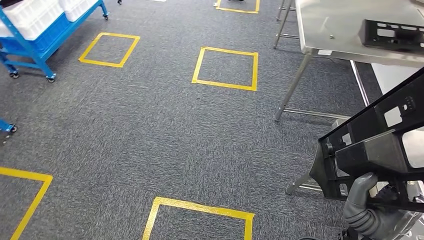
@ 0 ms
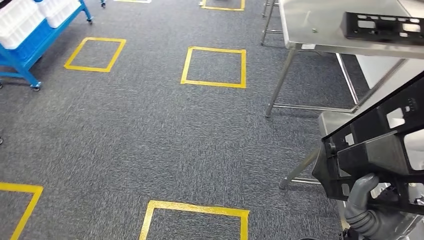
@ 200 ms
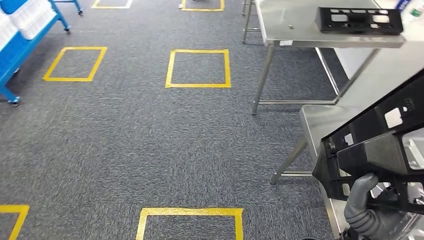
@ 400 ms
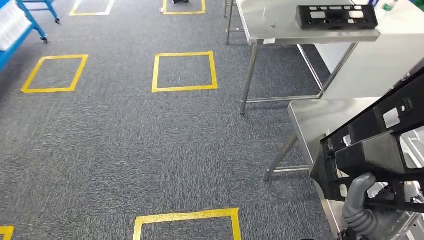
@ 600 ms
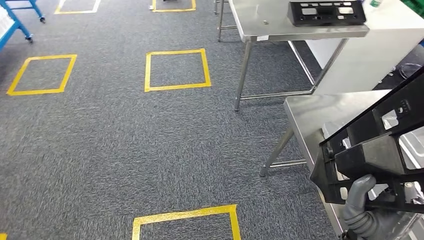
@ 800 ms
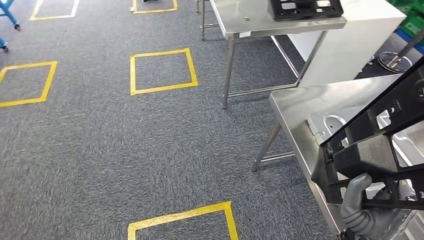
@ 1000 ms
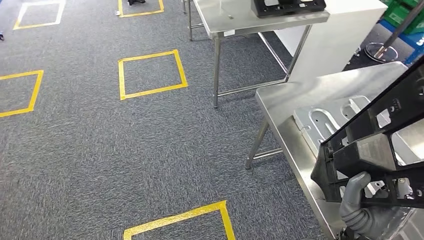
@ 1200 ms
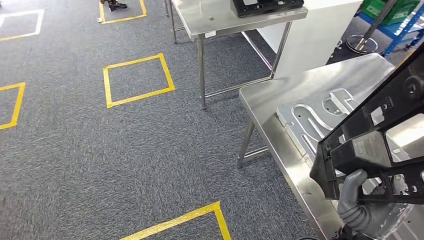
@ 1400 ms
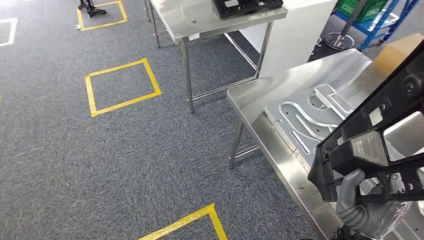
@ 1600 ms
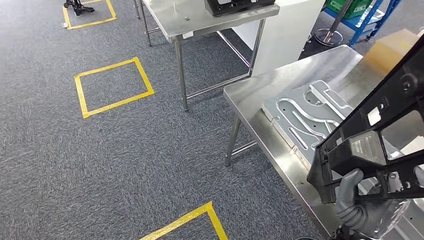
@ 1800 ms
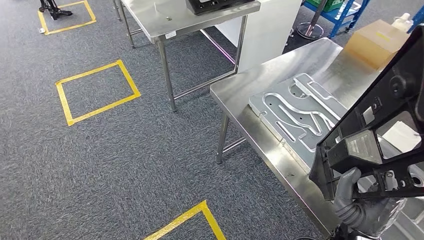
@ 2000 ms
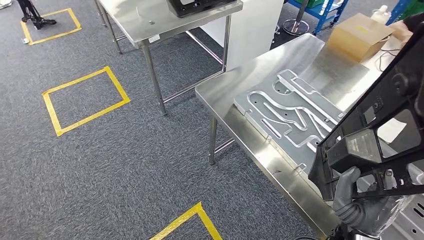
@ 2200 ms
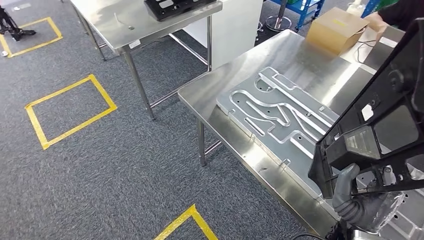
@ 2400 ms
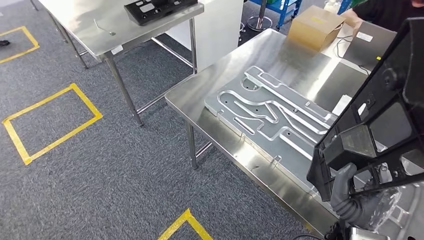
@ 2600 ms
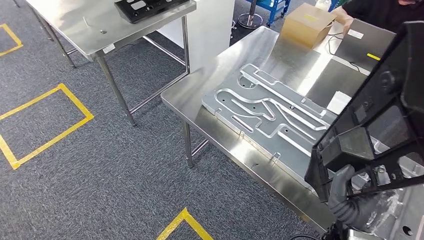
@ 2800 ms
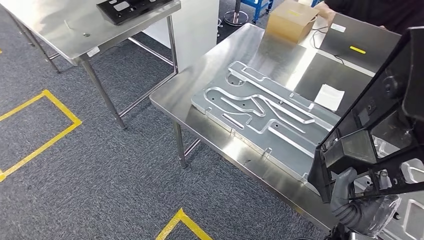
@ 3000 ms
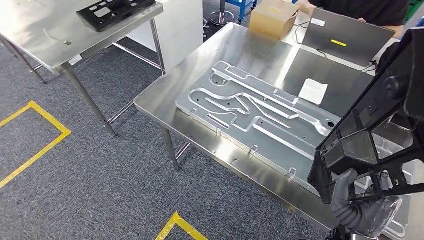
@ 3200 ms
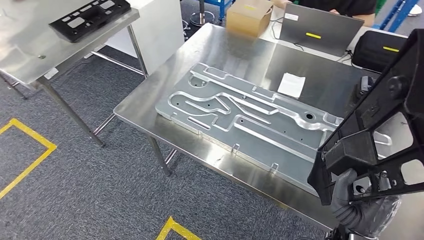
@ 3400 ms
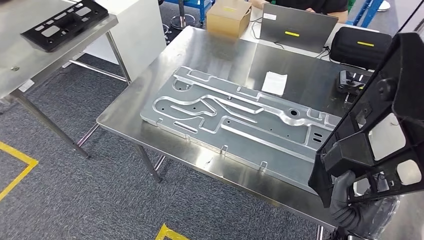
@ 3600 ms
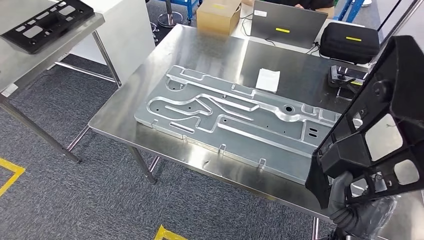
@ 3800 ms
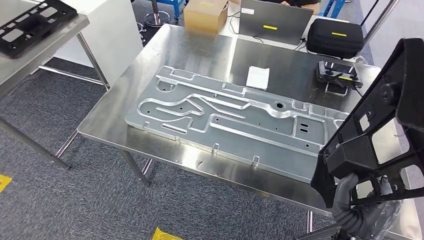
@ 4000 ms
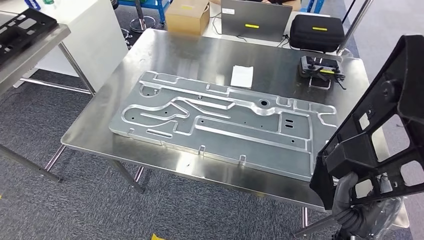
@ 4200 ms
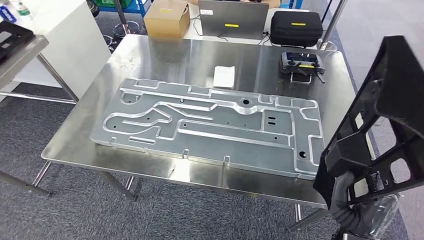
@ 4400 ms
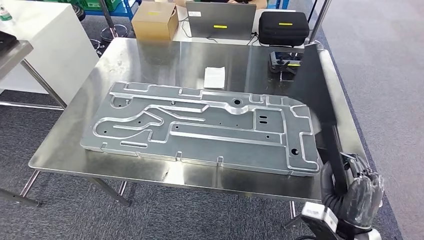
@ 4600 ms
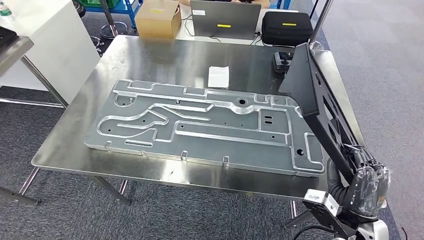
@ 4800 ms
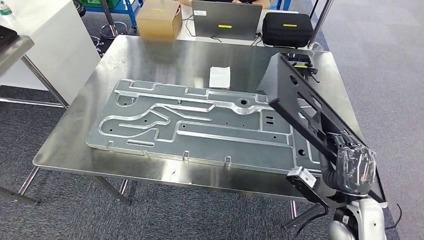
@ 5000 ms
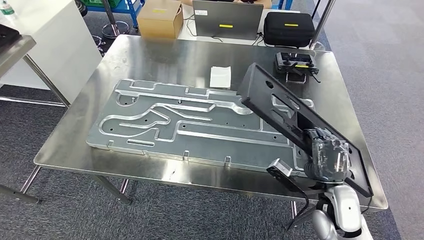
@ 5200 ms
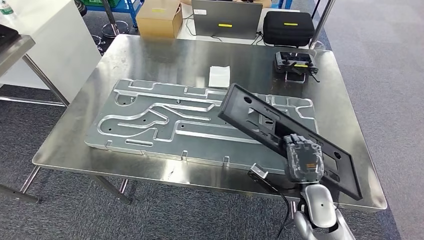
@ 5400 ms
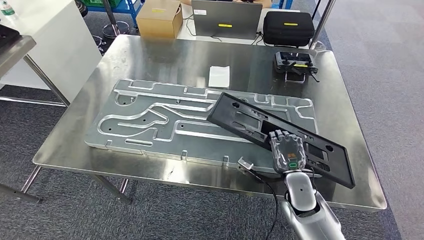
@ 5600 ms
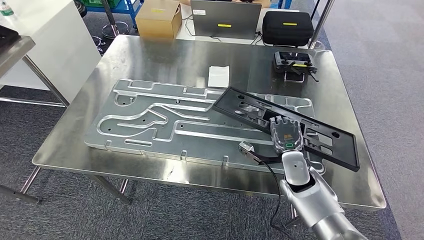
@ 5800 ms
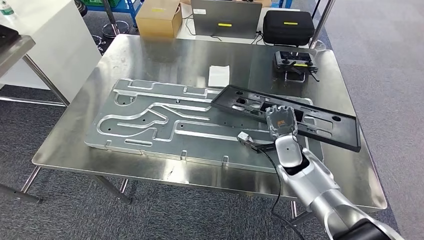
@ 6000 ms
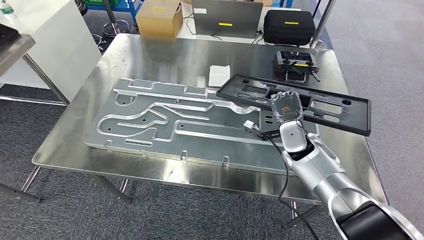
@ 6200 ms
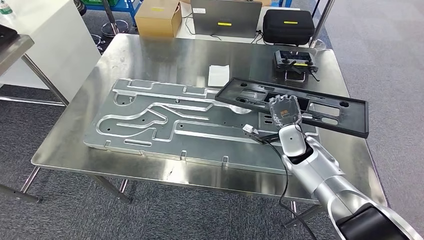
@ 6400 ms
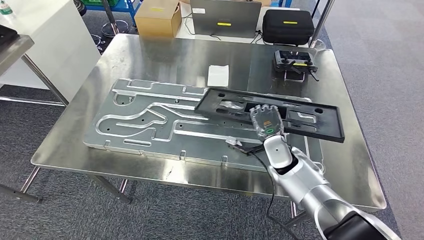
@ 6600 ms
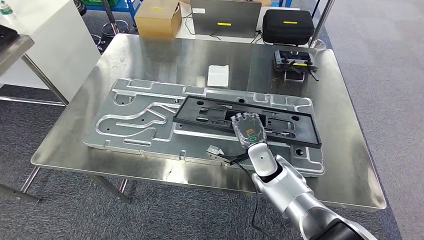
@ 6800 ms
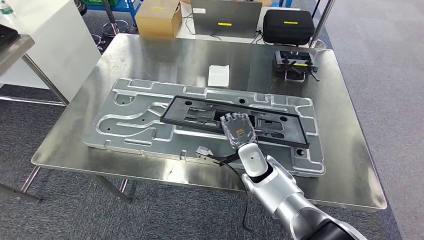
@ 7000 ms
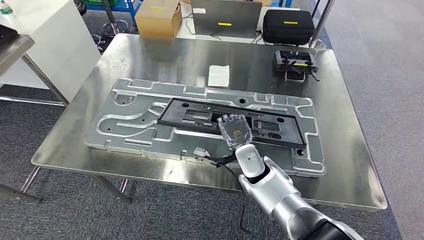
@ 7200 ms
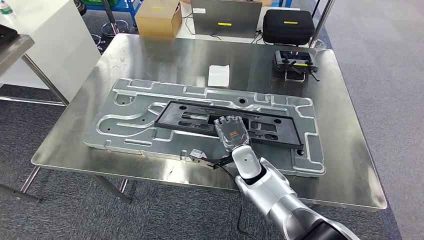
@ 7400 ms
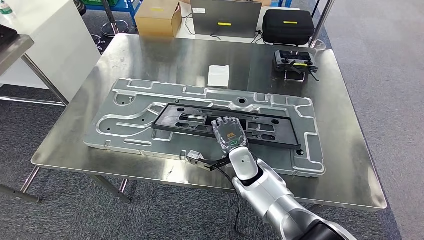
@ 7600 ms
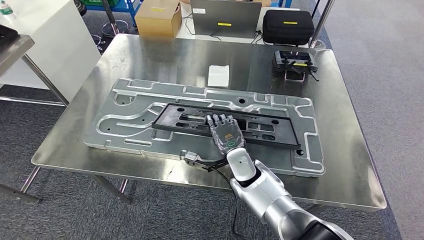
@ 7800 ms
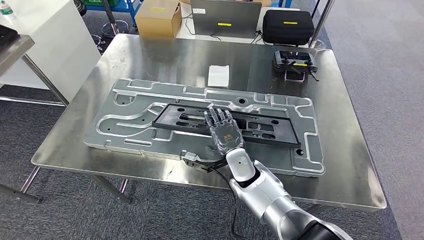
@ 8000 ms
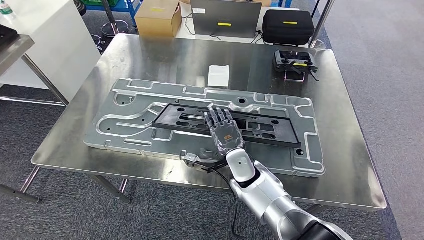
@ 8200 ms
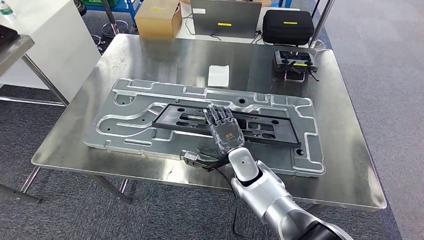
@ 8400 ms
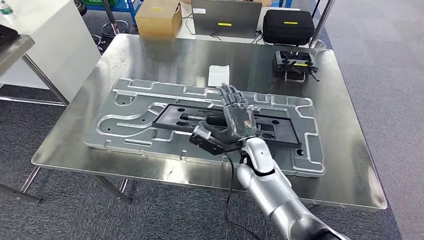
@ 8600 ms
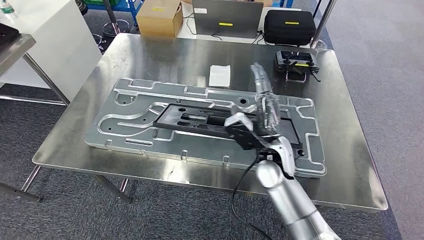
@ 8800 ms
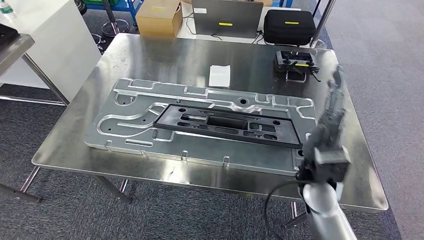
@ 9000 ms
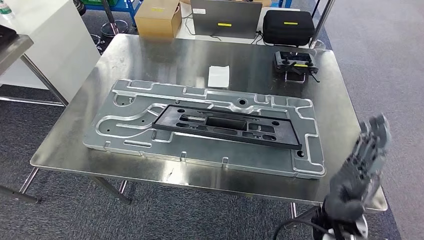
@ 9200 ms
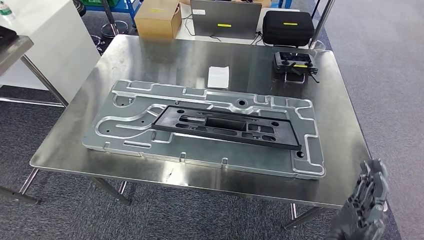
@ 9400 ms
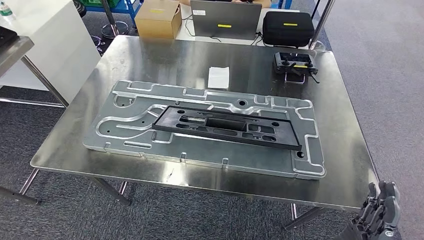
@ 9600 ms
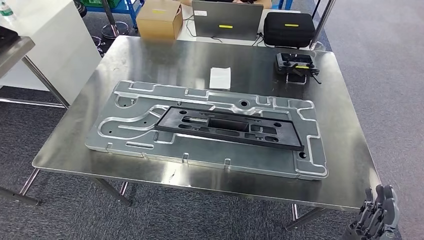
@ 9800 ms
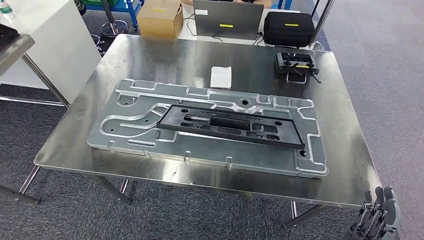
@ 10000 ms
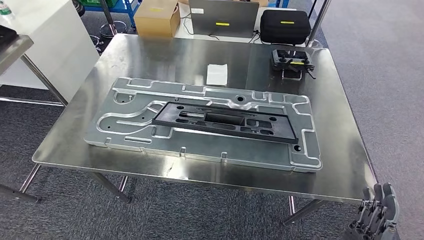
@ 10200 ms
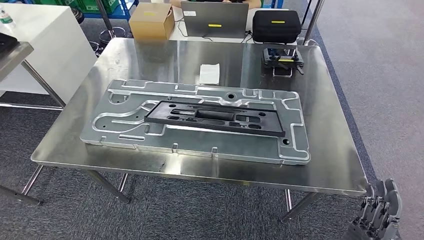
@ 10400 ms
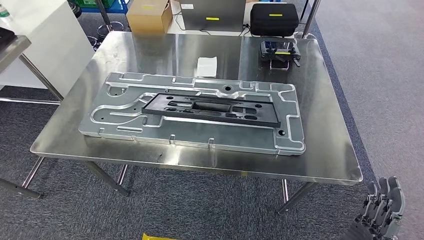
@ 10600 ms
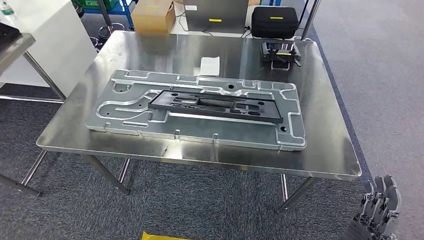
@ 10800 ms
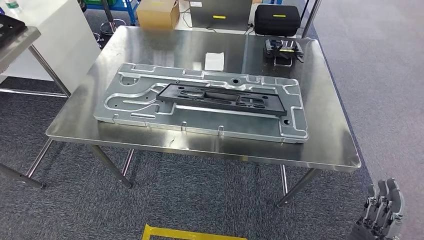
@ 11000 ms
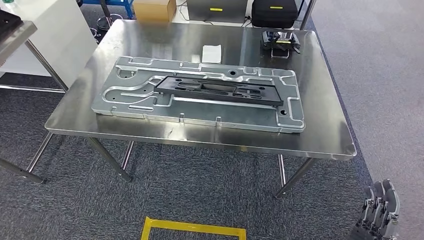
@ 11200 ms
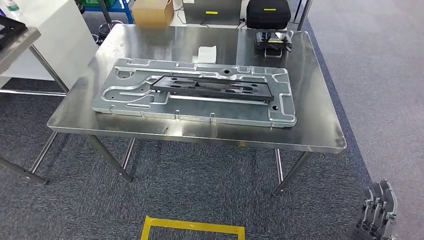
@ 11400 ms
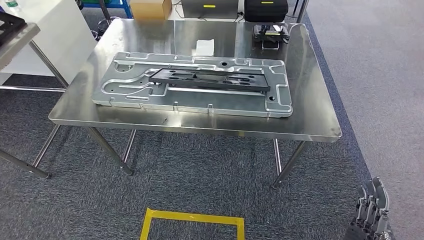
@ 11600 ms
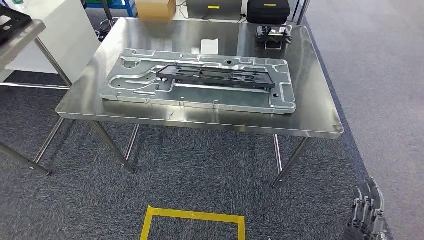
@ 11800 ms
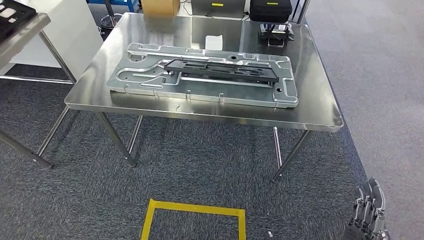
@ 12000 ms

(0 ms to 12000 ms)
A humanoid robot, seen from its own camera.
Step, 0 ms - 3800 ms: Move the large material to the front of the workbench.
6000 ms - 7600 ms: The right hand moves to the left, about 15 cm.
7600 ms - 9000 ms: The right hand goes approximately 20 cm to the right, upward and backward.

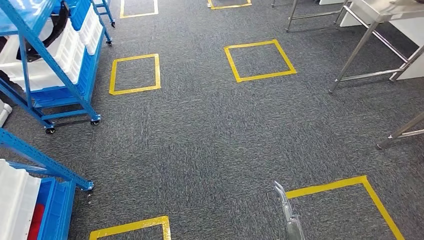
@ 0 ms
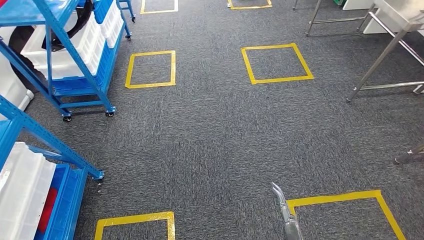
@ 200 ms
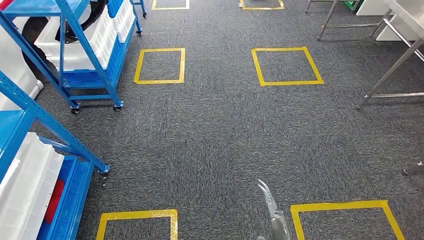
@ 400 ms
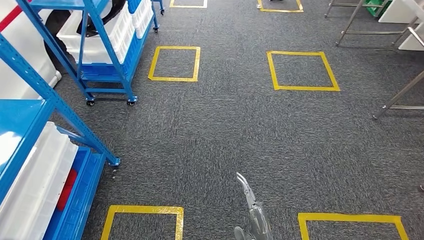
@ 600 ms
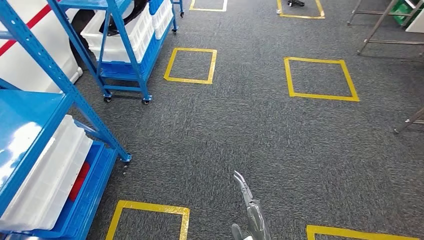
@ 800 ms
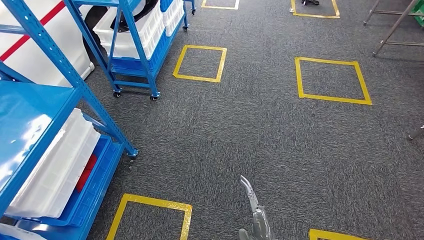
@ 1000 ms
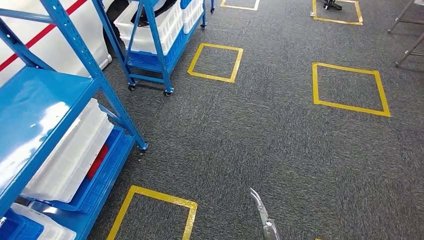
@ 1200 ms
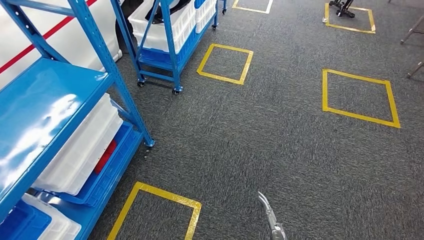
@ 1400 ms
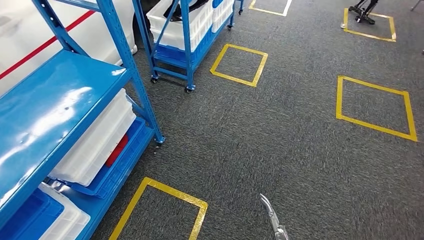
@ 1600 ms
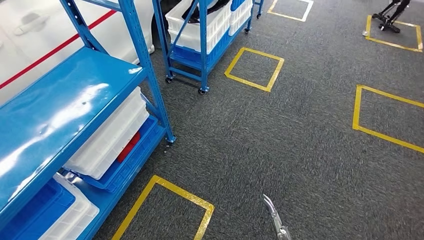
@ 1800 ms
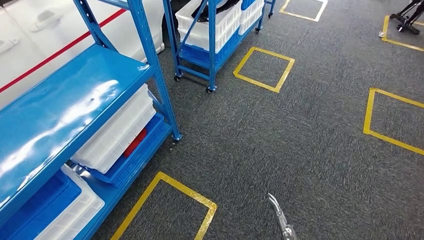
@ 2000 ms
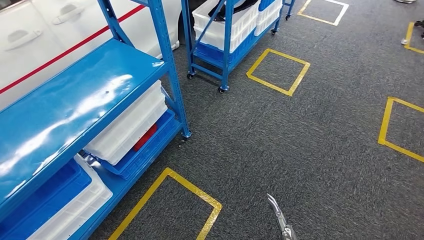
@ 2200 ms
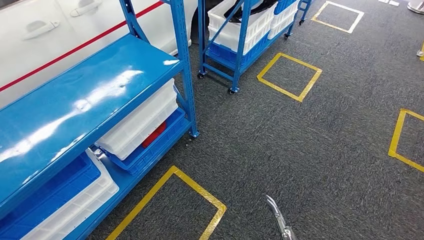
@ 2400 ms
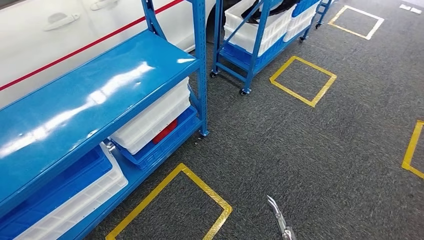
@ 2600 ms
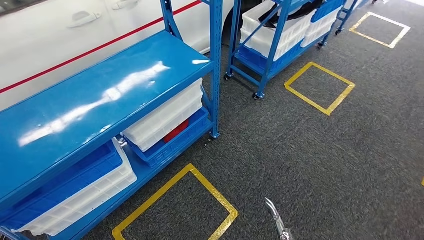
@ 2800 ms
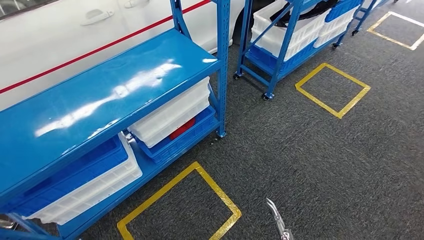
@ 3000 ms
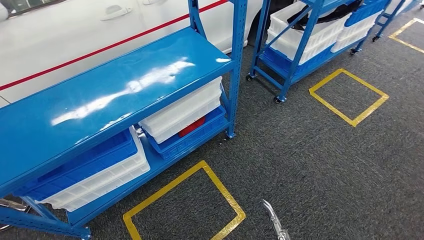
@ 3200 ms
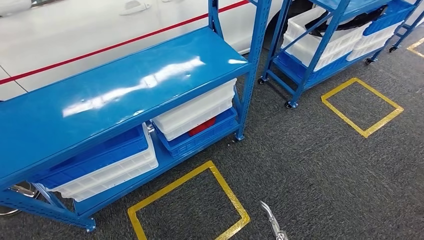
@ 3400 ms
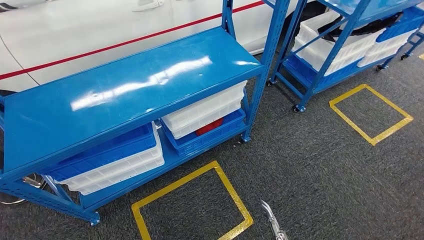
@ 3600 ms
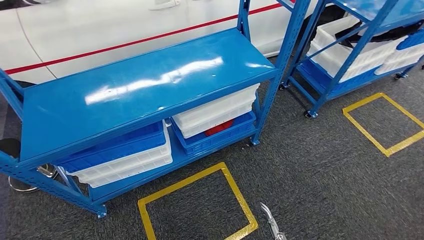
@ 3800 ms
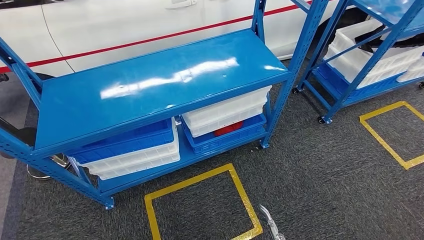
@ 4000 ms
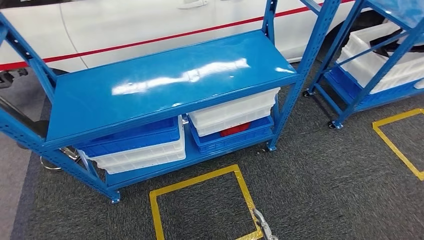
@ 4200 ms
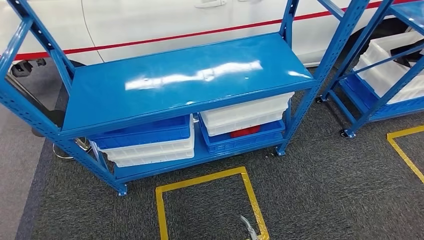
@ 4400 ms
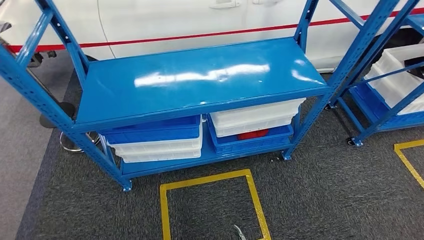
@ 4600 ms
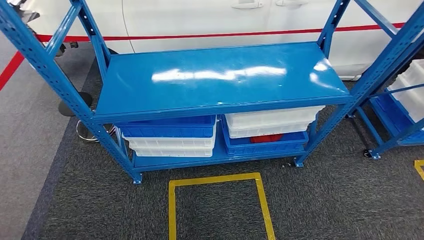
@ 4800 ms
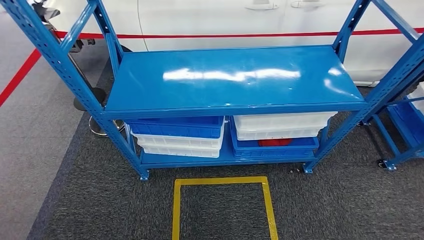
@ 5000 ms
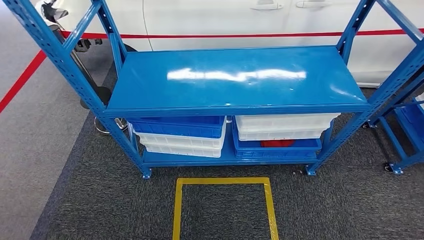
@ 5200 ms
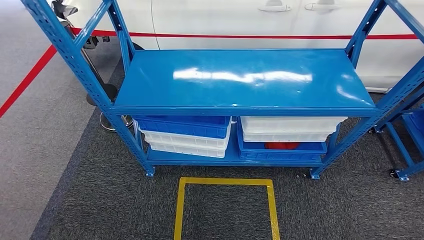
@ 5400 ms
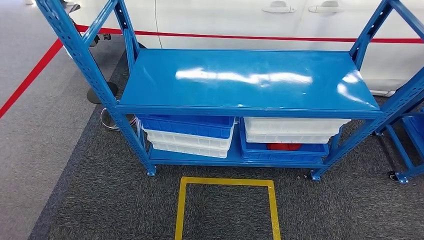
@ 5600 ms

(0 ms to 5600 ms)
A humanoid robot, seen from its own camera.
Step, 0 ms - 5600 ms: Move to the initial position of the shelf.
